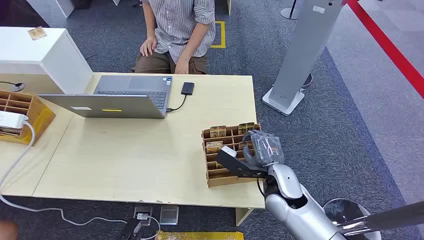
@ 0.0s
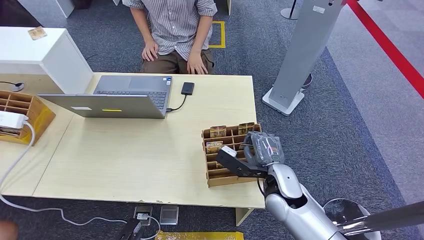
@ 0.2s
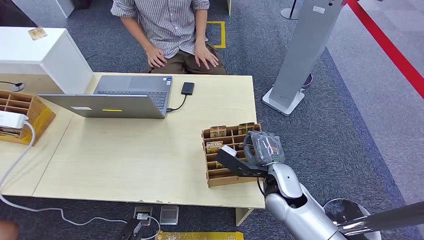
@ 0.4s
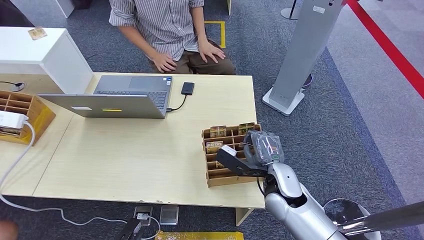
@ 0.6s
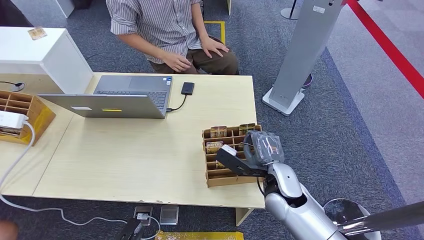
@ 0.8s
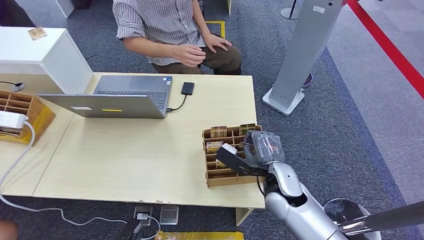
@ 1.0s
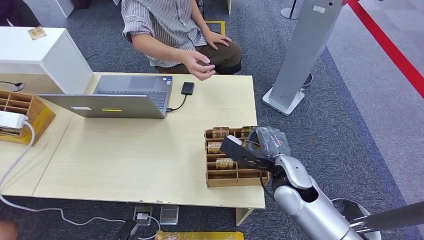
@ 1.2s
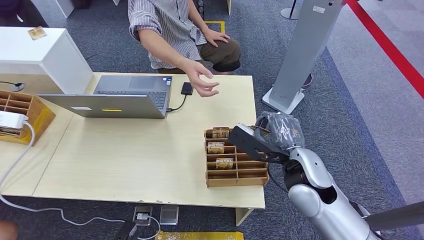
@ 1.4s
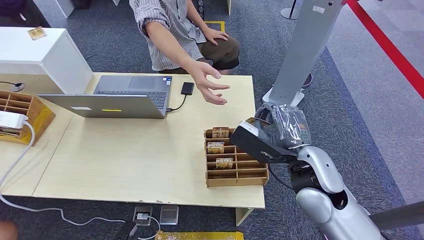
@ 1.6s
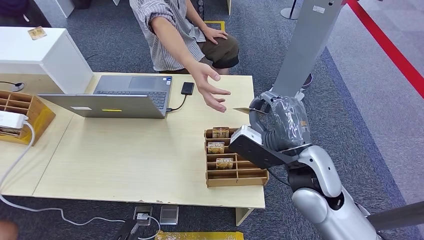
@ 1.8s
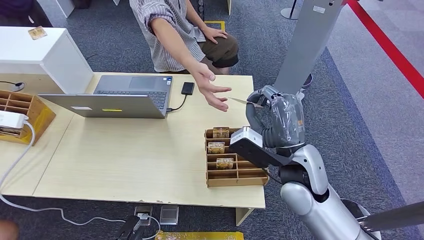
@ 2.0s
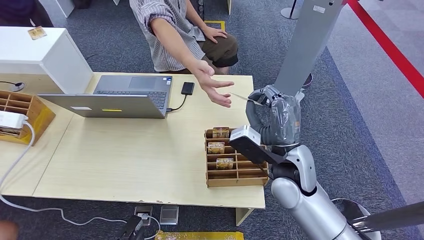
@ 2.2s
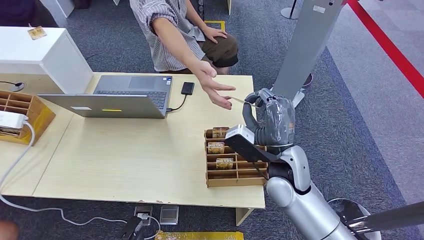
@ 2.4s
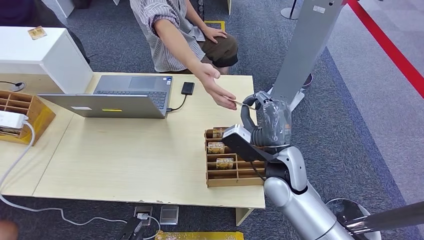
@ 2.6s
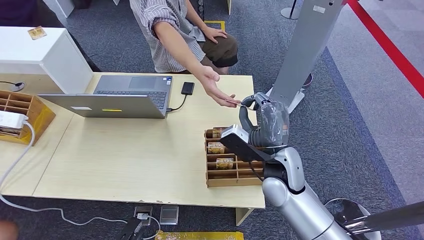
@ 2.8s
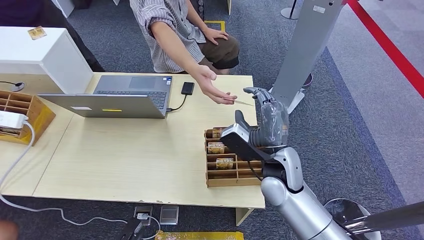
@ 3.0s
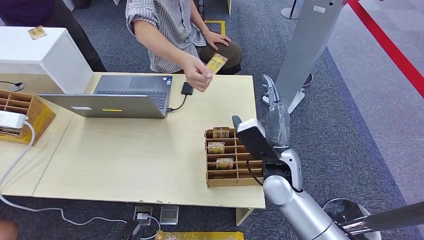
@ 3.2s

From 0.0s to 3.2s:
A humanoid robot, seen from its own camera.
Step, from 0.0s to 1.6s: Pick up the key card from the card box.
Step, from 2.4s to 3.2s: Hand the key card to the target.
From 1.6s to 3.2s: The right hand goes some 5 cm downward.
